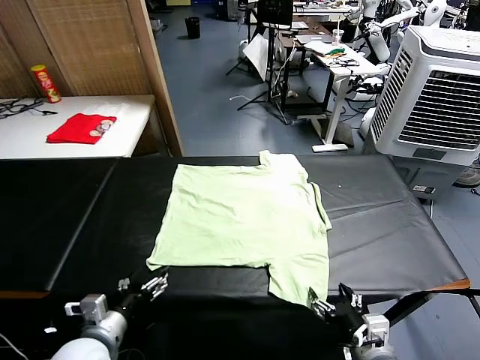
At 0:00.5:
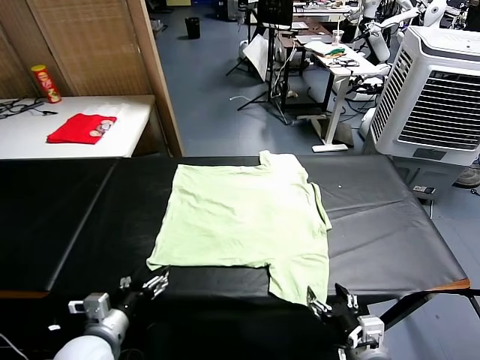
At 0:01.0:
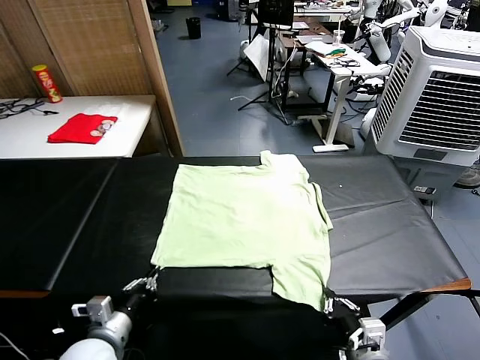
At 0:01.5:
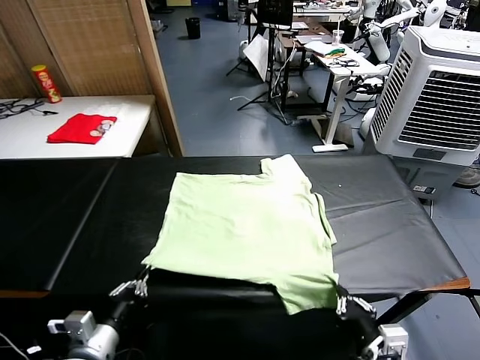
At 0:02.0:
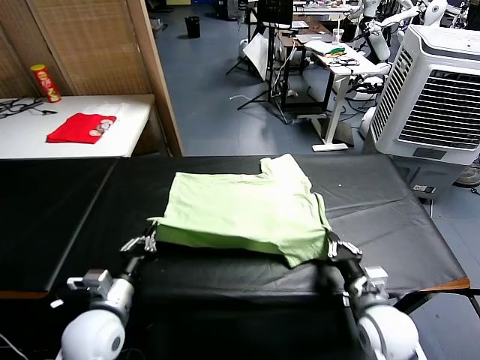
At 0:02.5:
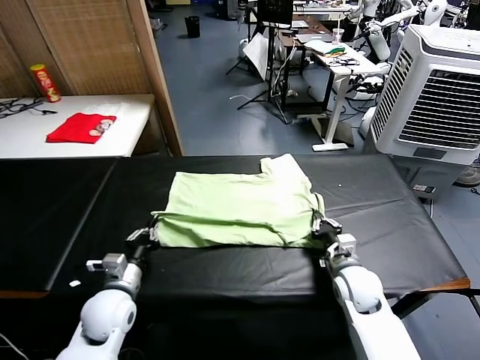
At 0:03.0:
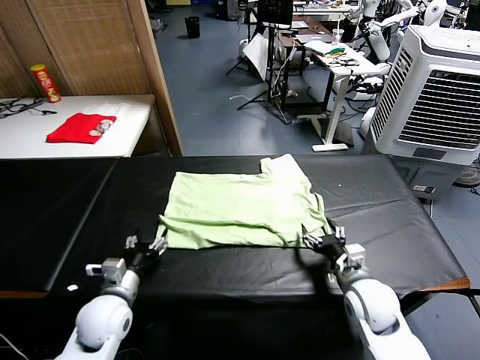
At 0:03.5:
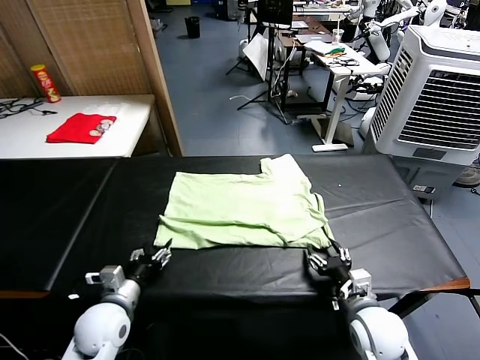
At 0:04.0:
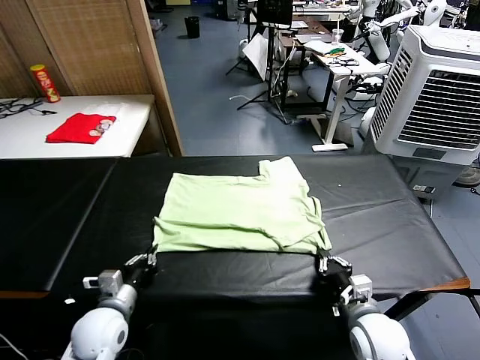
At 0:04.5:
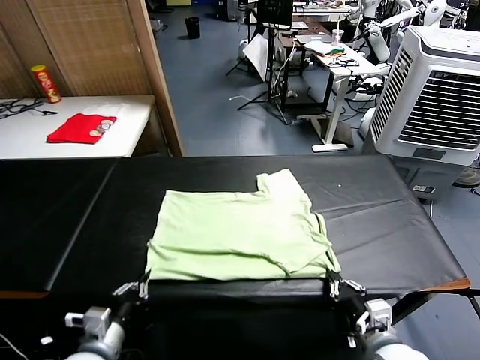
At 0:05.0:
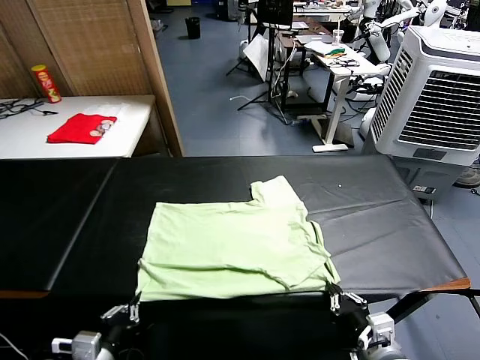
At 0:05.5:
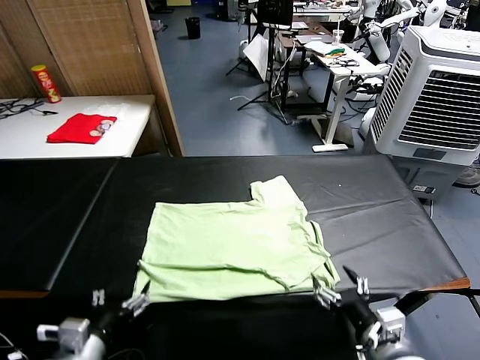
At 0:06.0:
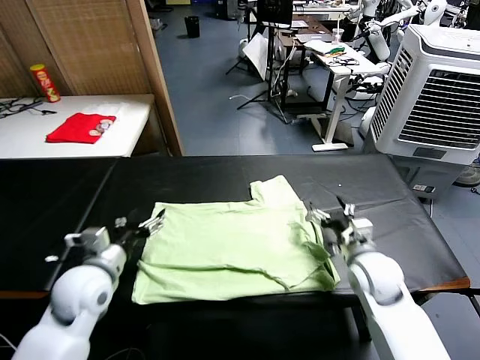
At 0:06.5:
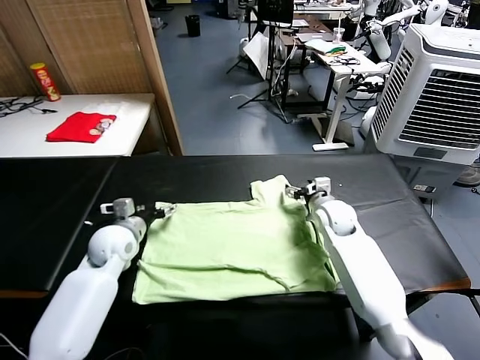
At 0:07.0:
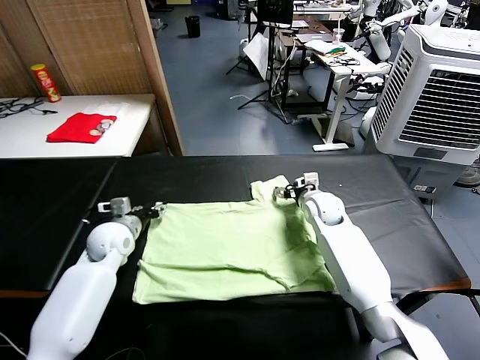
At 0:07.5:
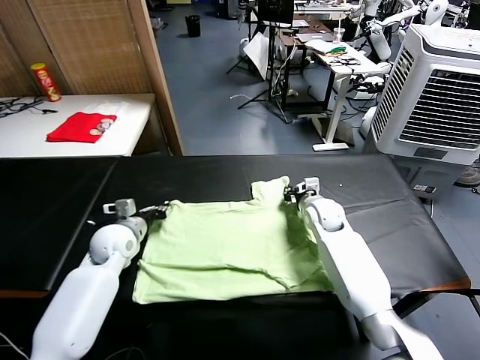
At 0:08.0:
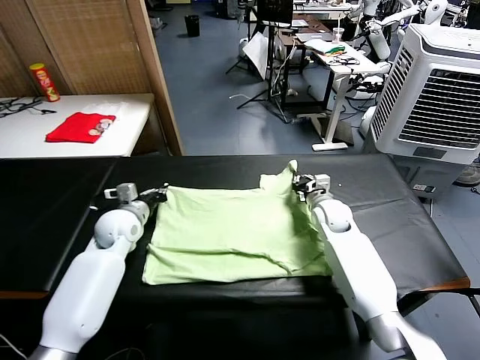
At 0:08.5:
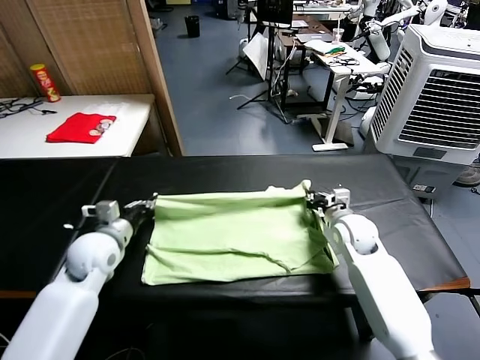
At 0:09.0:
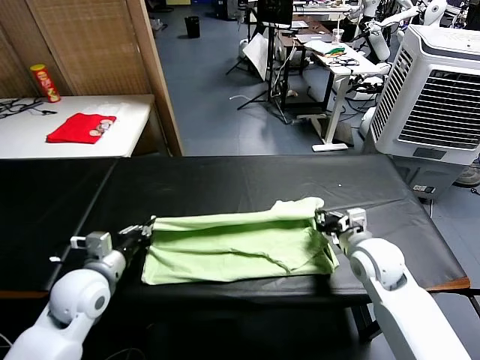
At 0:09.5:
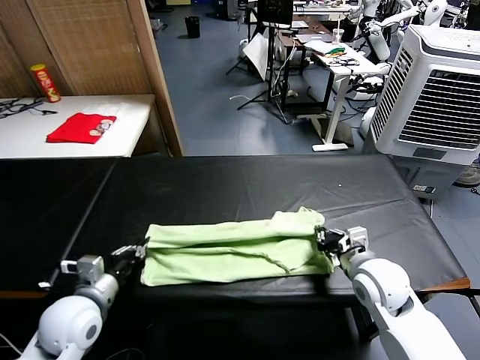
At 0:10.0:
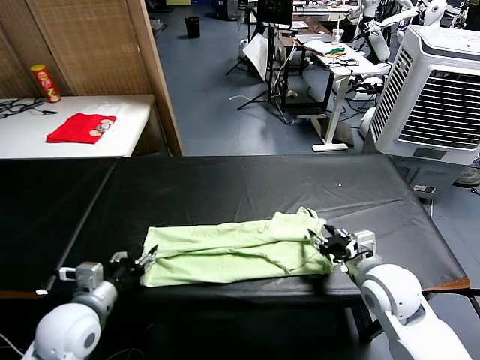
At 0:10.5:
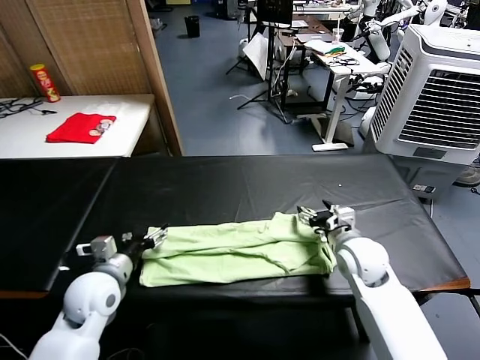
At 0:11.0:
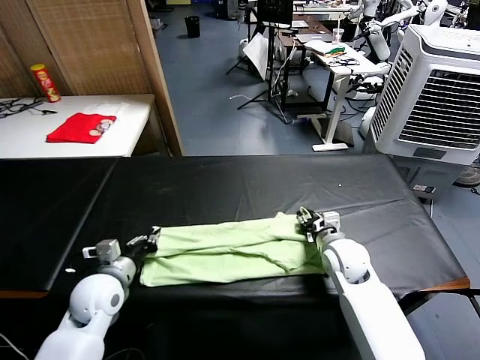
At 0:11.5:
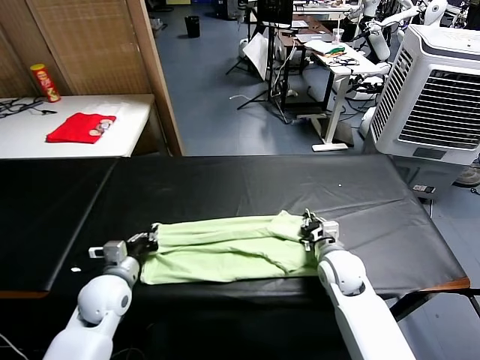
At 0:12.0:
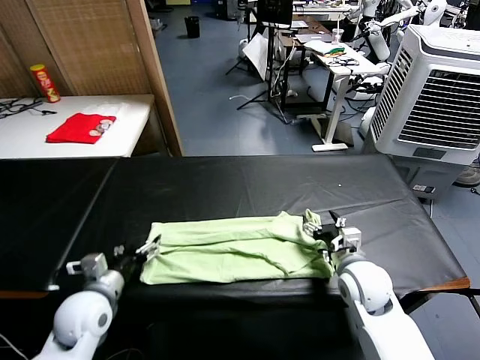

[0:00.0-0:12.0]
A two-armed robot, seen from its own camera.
Task of the whole recording: fold and organize the clothes.
Step, 0:00.0 to 0:01.0: use both grippers simultaneously to clamp the lower edge of the clothing fabric.
Step, 0:01.5 to 0:02.5: use both grippers to drag the lower edge of the fabric forward and fold it over the upper edge.
Step, 0:03.0 to 0:05.0: Drag the clothes downward with both gripper.
Step, 0:05.5 to 0:07.0: use both grippers simultaneously to clamp the upper edge of the clothing fabric.
Step, 0:07.5 to 0:10.0: use both grippers to drag the upper edge of the fabric backward and fold it over the lower edge.
0:02.0 to 0:04.0: The left gripper opens, then closes once more, while the right gripper is displaced backward by some 10 cm, and opens, then closes again.
0:04.0 to 0:06.0: The right gripper travels forward by approximately 20 cm, and opens up; the left gripper travels upward by approximately 10 cm, travels backward and back again, roughly 15 cm each way, and opens its fingers.
0:06.0 to 0:08.0: The right gripper heads forward, covering roughly 10 cm, and closes, while the left gripper travels forward by roughly 15 cm, and closes up.
0:08.0 to 0:10.0: The two grippers go some 20 cm backward. The left gripper opens its fingers; the right gripper opens its fingers.
0:10.0 to 0:12.0: The left gripper closes, then opens again, while the right gripper closes and opens again.

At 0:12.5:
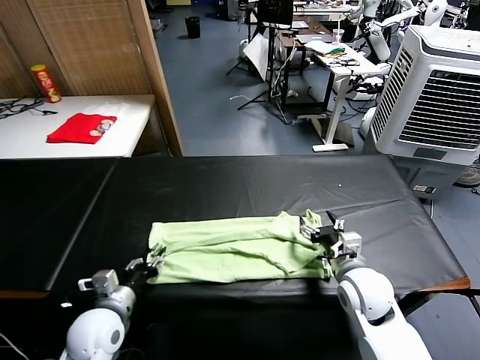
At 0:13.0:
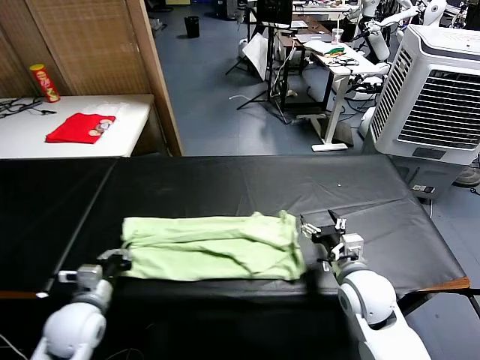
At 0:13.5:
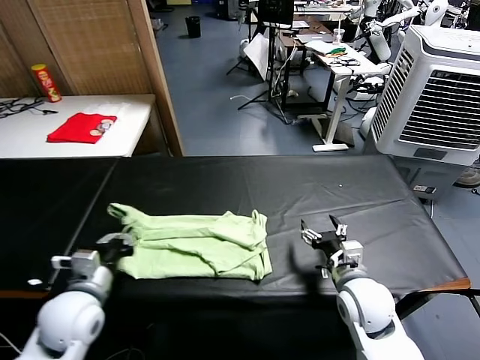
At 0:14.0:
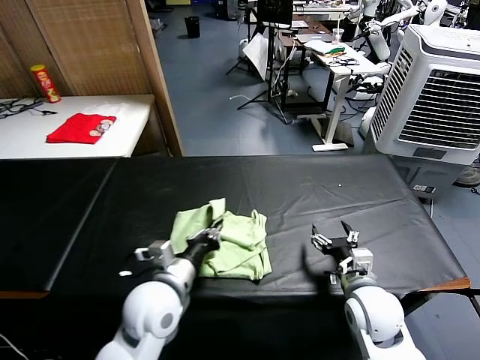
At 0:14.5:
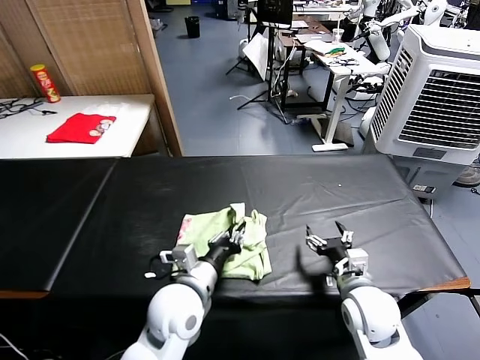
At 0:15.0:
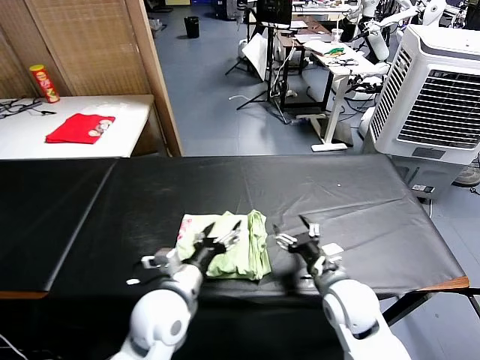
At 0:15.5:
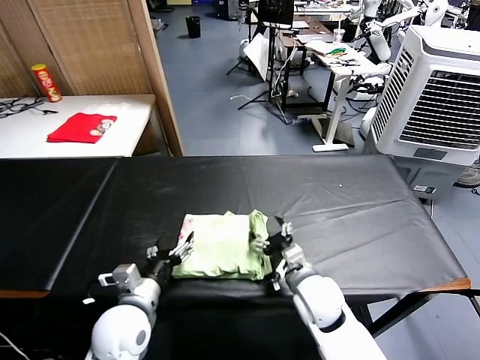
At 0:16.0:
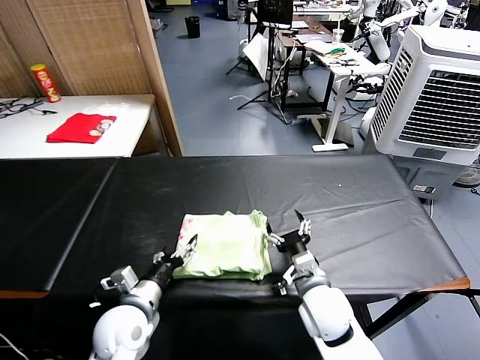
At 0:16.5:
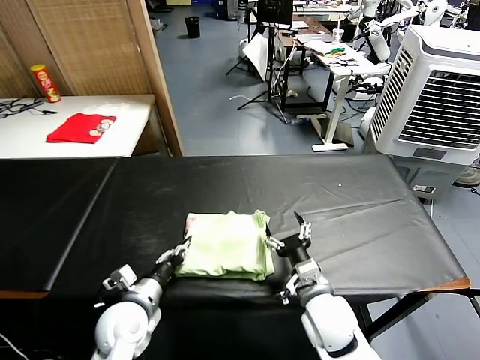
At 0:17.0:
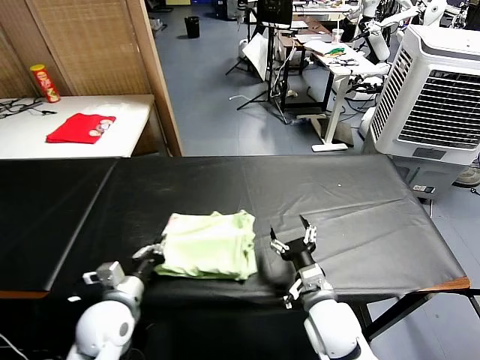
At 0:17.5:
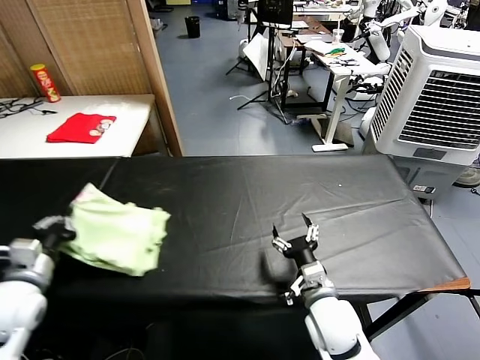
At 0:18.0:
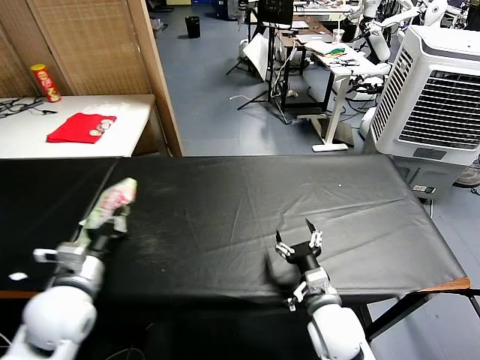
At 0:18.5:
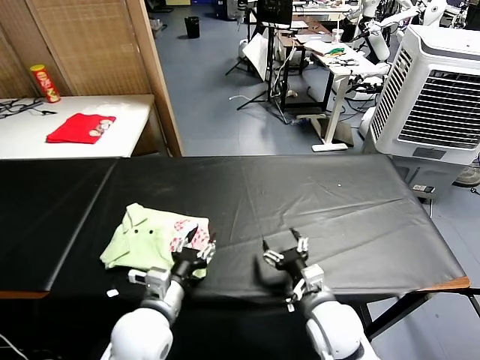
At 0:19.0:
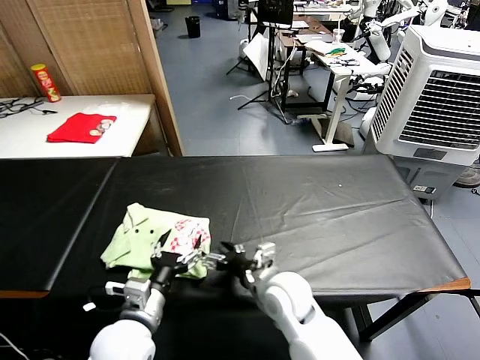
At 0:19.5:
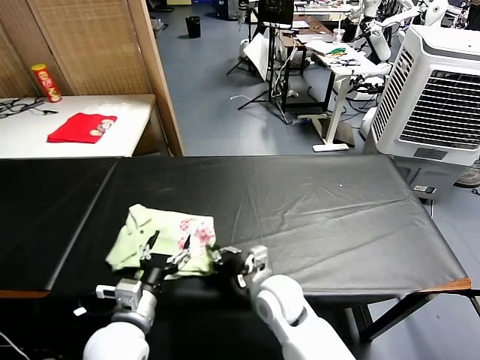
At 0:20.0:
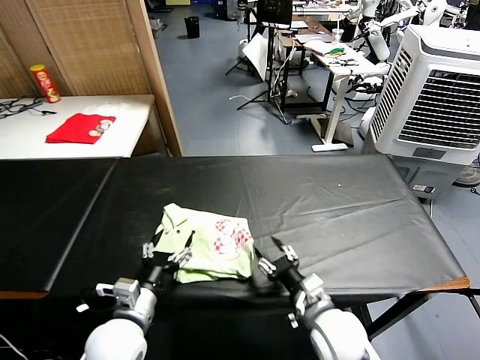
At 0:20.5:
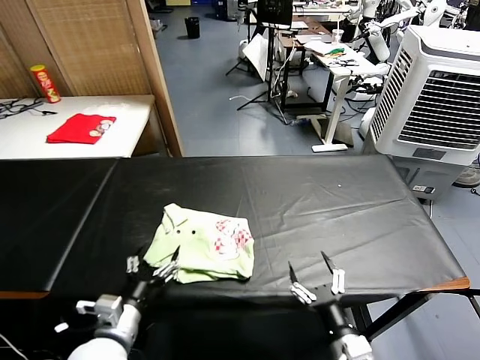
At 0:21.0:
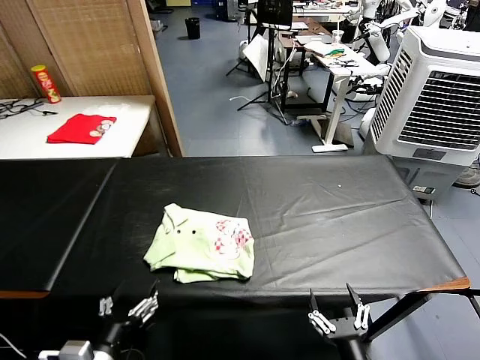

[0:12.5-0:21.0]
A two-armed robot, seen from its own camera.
Task of the whole recording: fold and organize the clothes.
Step, 0:13.0 to 0:14.5: use the left gripper to drag the left edge of the fabric to the left and folds it over the right edge.
Step, 0:15.0 to 0:18.5: Flip the folded clothes over with left gripper.
Step, 0:19.0 to 0:19.5: Drag the clothes to the center of the table.
0:12.5 to 0:14.5: The left gripper shifts some 15 cm to the right.
0:14.5 to 0:16.5: The right gripper travels to the left by roughly 10 cm. Meanwhile the left gripper travels to the left and downward by some 15 cm, and opens, then closes again.
0:16.5 to 0:19.0: The left gripper shifts approximately 5 cm upward, goes to the left and returns, about 15 cm each way, and opens. The right gripper goes about 5 cm to the left.
0:19.0 to 0:21.0: The right gripper moves backward and to the right, some 25 cm, and closes, then opens again. The left gripper is displaced backward and to the left by approximately 10 cm.
